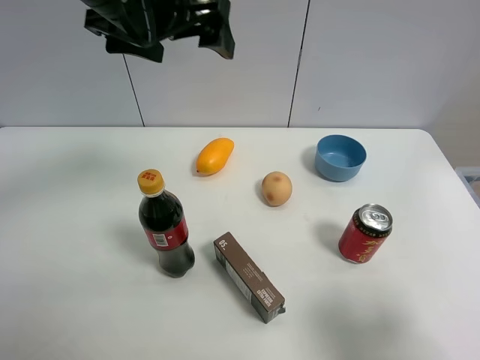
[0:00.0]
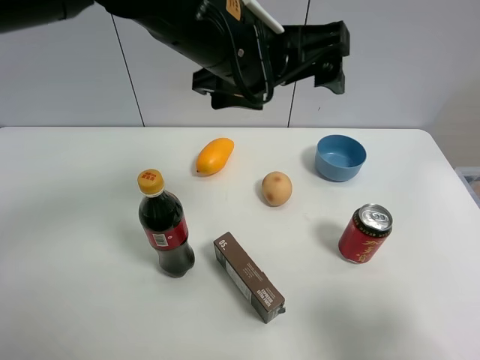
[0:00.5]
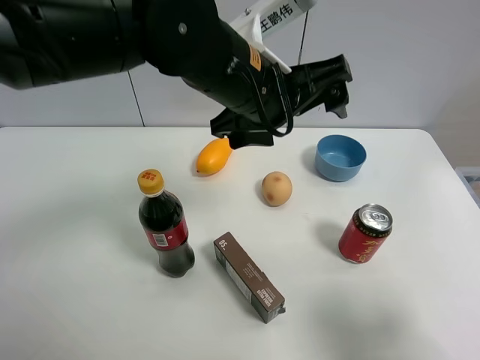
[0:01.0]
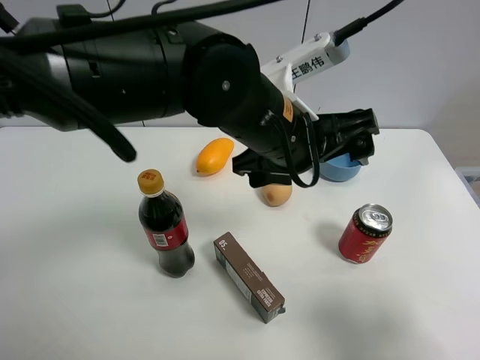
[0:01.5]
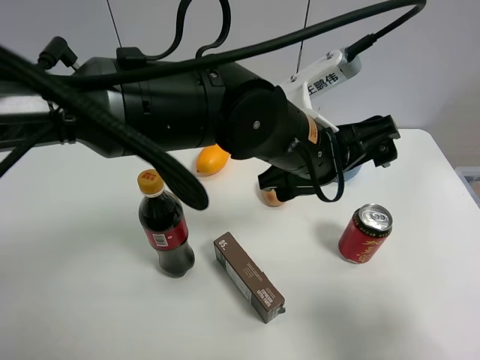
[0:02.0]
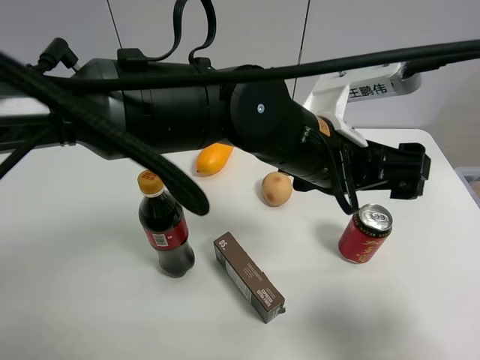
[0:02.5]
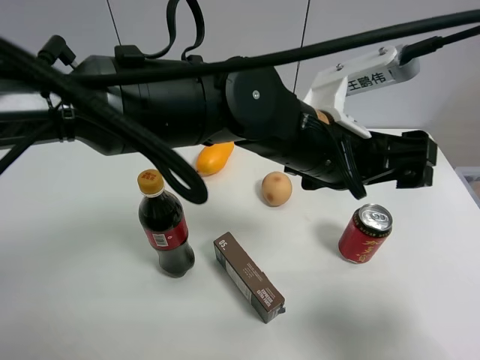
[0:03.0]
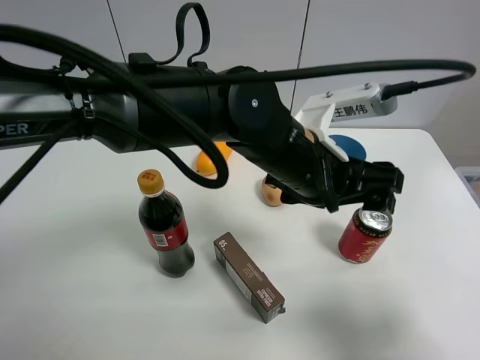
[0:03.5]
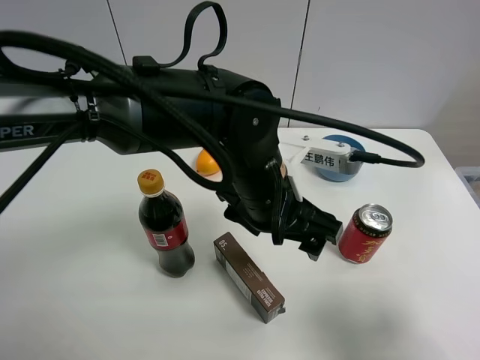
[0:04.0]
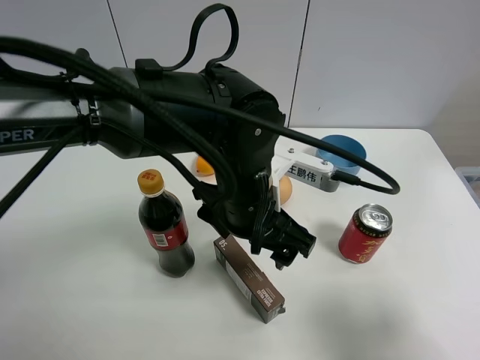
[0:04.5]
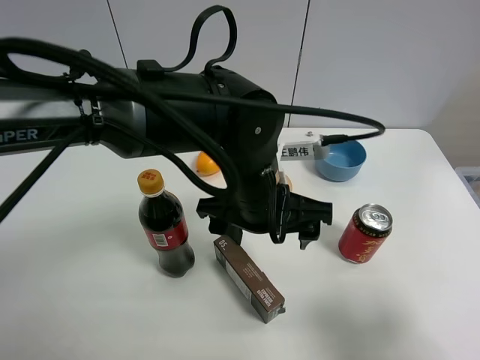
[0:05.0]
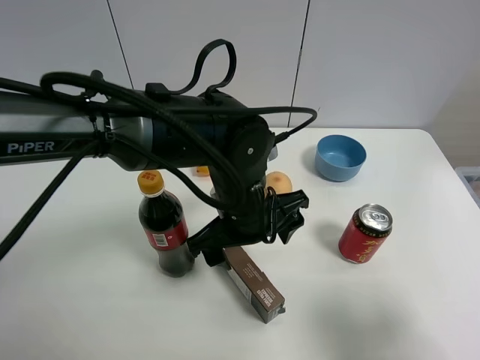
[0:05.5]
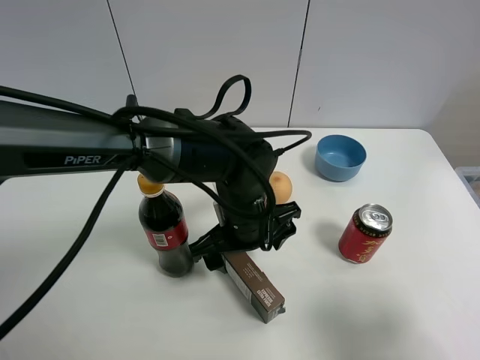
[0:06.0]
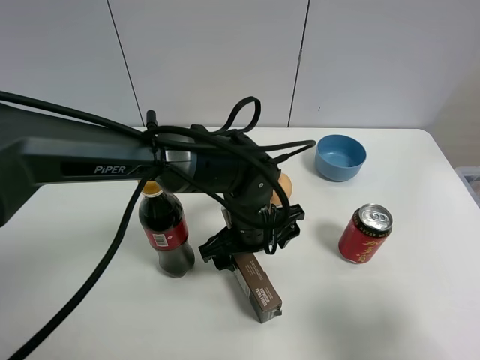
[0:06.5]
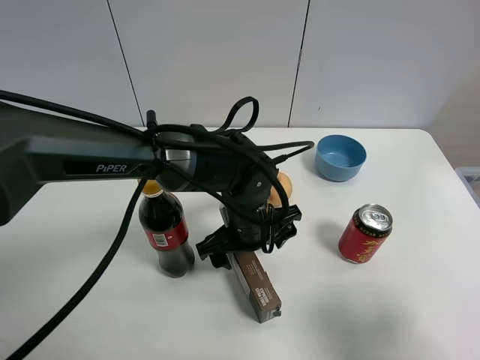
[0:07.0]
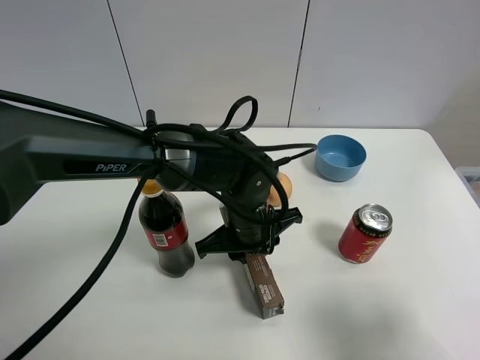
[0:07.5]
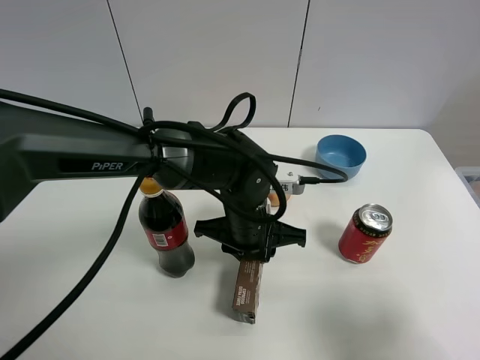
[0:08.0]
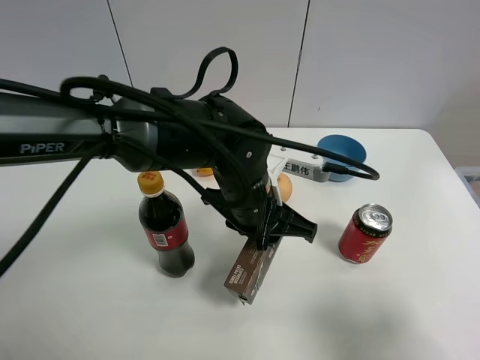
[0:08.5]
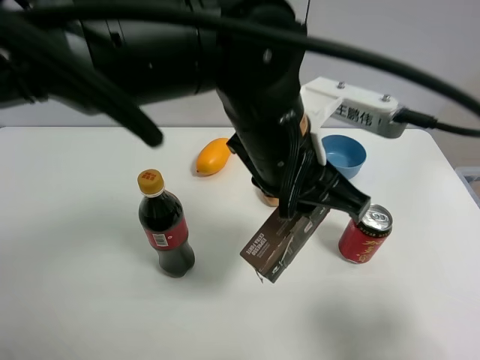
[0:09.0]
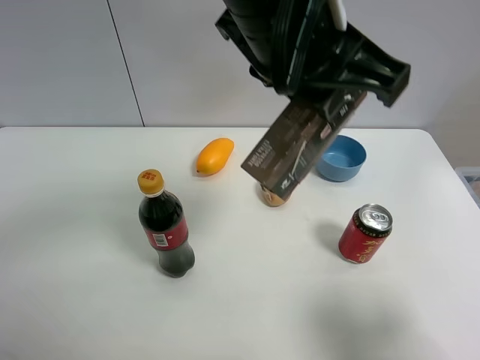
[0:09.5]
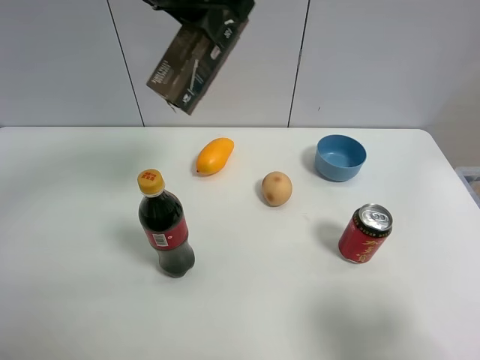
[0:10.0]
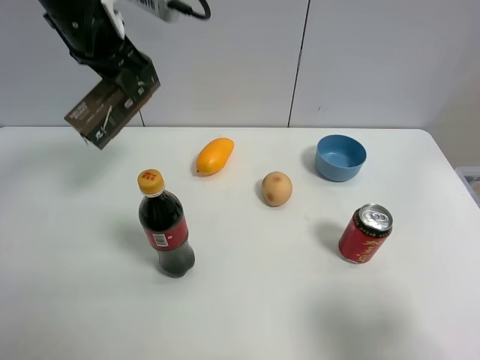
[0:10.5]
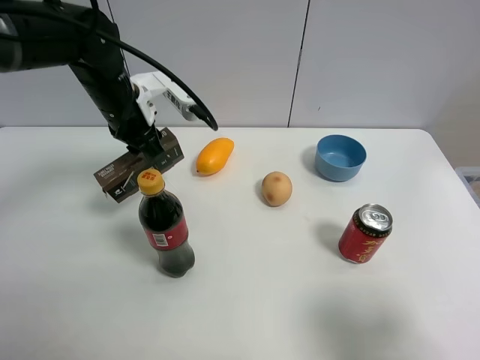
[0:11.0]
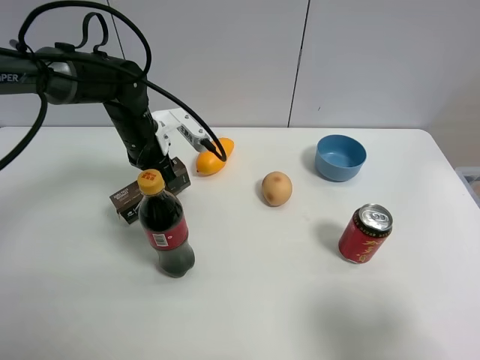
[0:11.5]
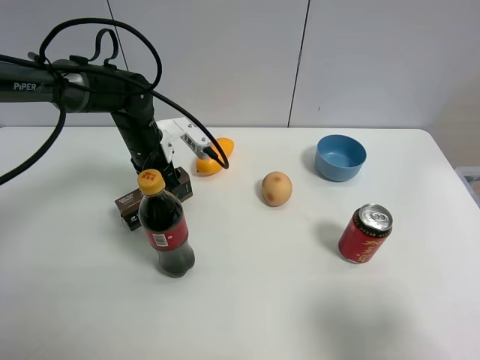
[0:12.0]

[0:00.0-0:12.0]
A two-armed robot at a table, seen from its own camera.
Task of the whole recording: the gripper move the object.
Step, 0:00.0 to 0:07.0: Grasp the Luckin Coffee box with the left gripper.
0:00.0 to 0:02.0: The left gripper moves to the right, downward and backward, approximately 20 cm.
0:02.0 to 0:04.0: The left gripper ends up some 5 cm from where it was.
0:04.0 to 0:06.0: The left gripper moves downward, some 5 cm.
0:06.0 to 0:08.0: The left gripper closes its fingers.
0:08.0 to 0:10.0: The left gripper goes approximately 30 cm upward.
0:10.0 to 0:12.0: The left gripper heads downward, covering about 30 cm, and opens.

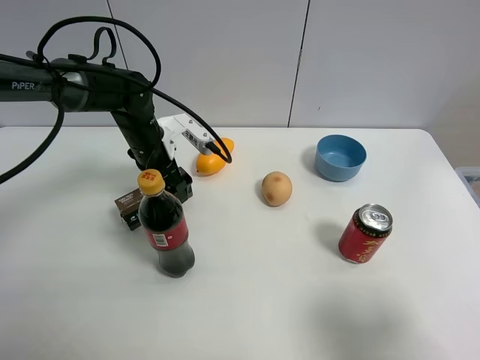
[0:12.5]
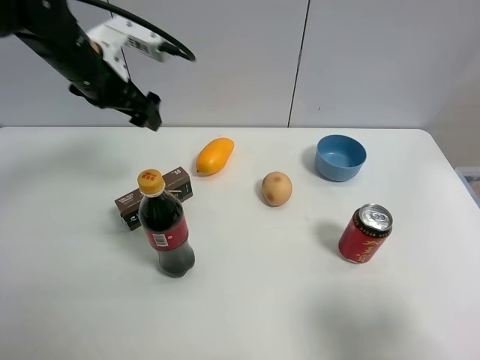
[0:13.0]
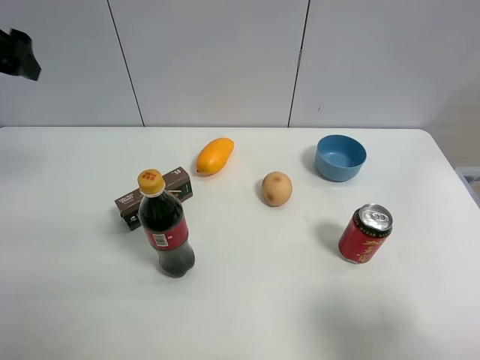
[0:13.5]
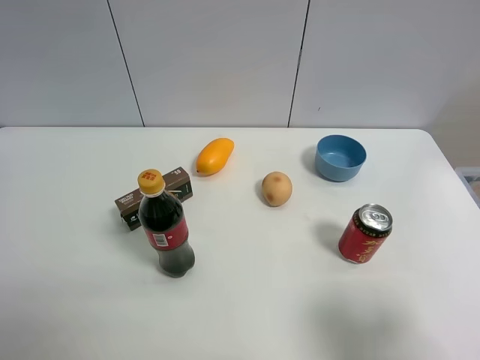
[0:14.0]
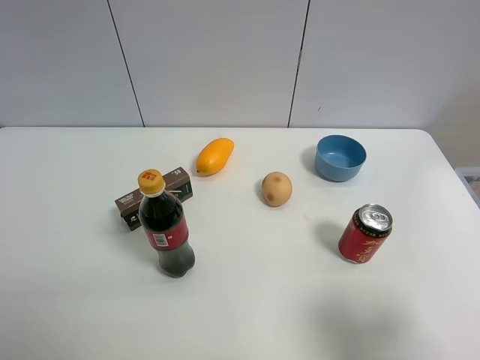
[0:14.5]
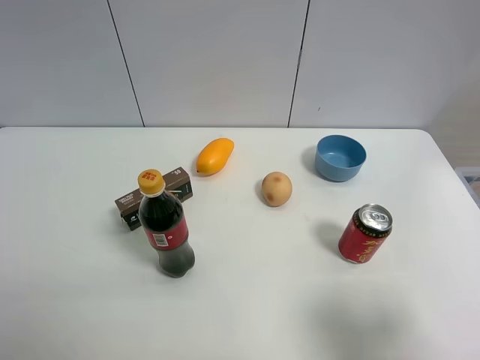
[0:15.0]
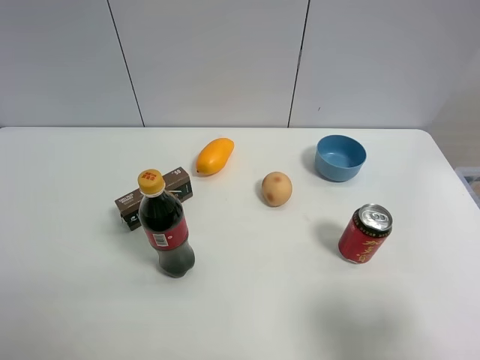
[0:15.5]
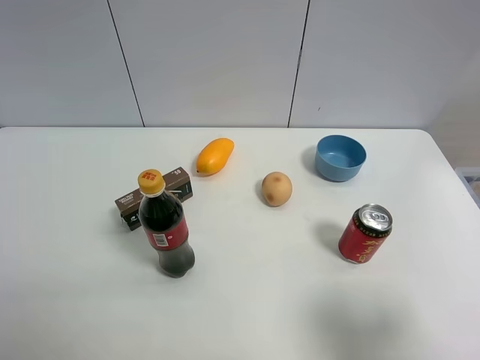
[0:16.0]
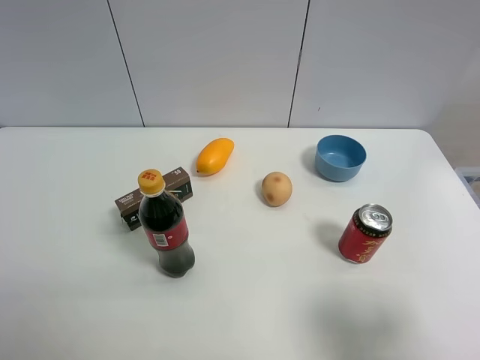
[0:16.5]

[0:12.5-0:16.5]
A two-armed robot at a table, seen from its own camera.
Task of the whole recording: the gripper move the object.
0:12.5 to 0:14.5: The left gripper heads backward, upward and to the left, covering approximately 50 cm.

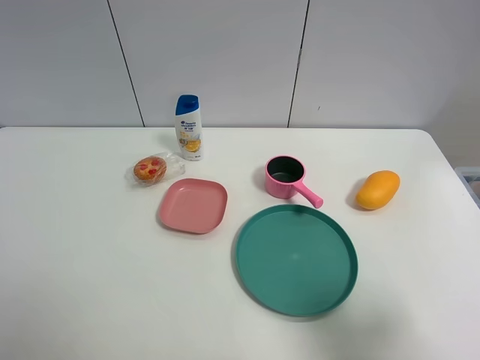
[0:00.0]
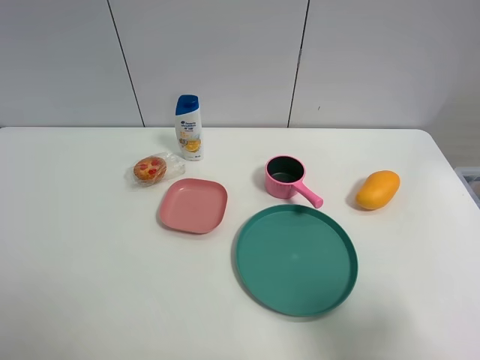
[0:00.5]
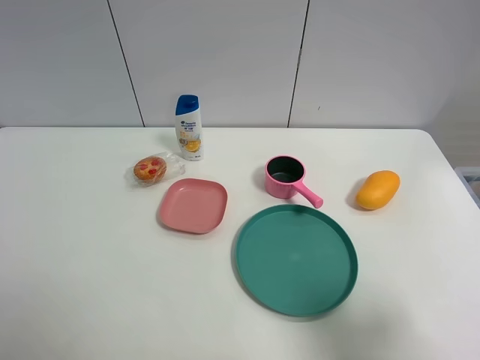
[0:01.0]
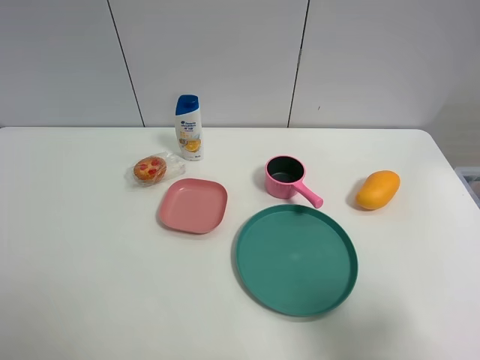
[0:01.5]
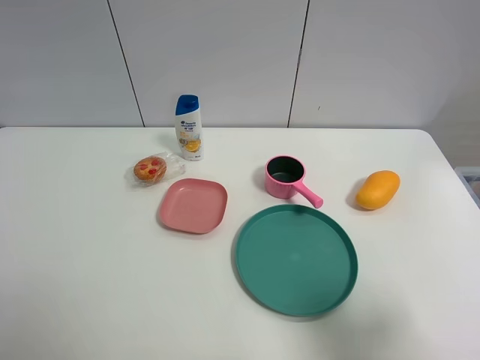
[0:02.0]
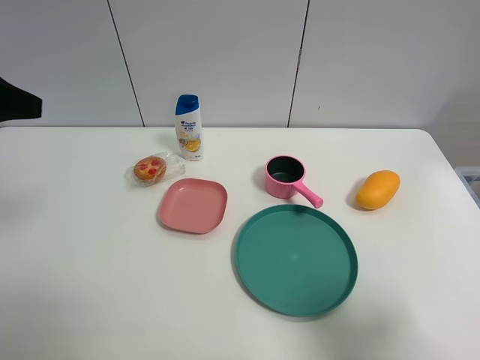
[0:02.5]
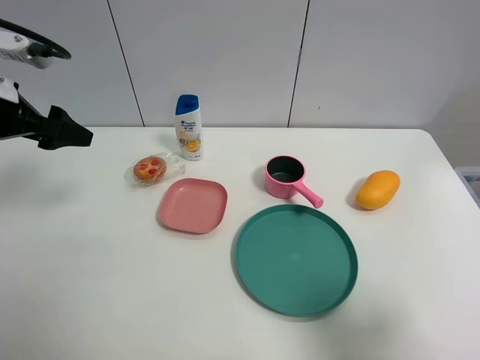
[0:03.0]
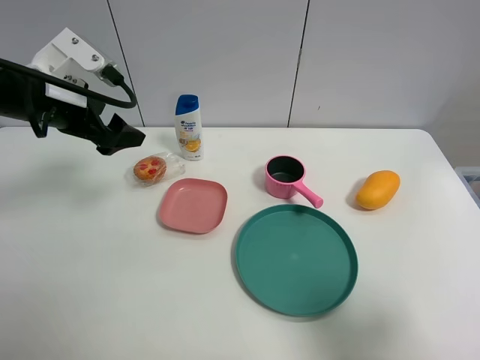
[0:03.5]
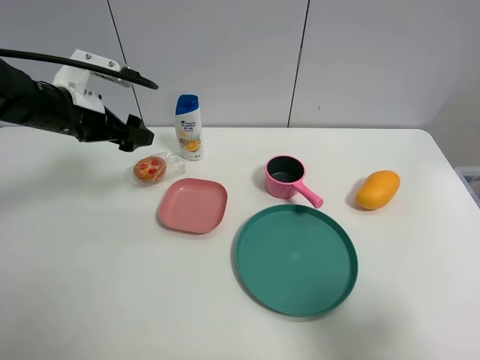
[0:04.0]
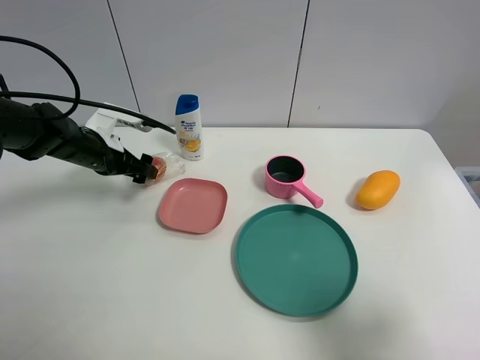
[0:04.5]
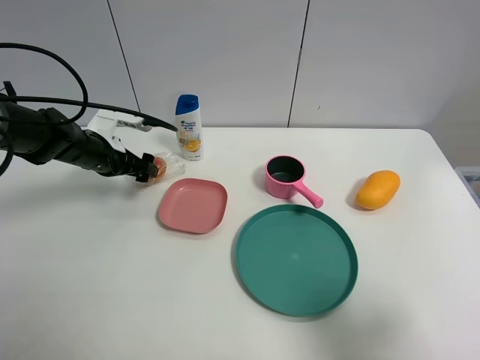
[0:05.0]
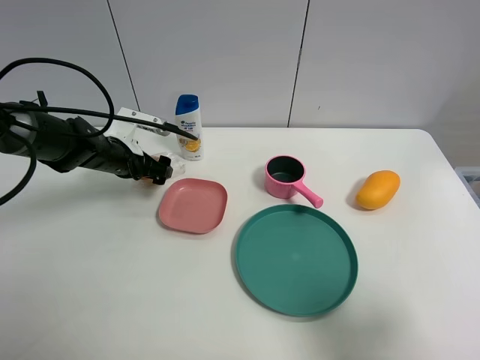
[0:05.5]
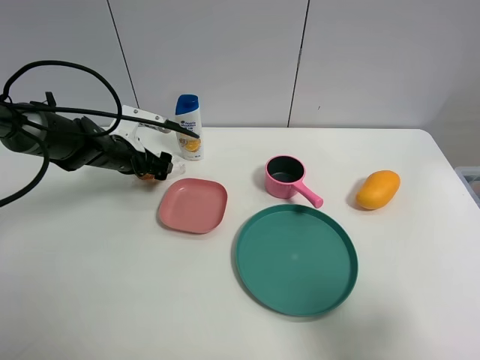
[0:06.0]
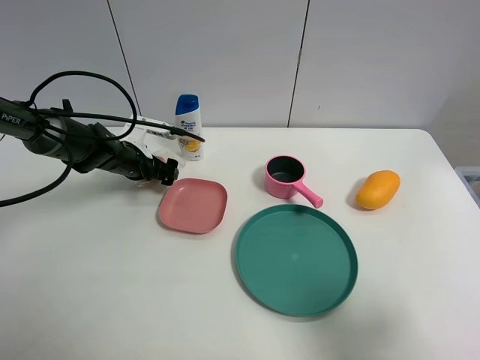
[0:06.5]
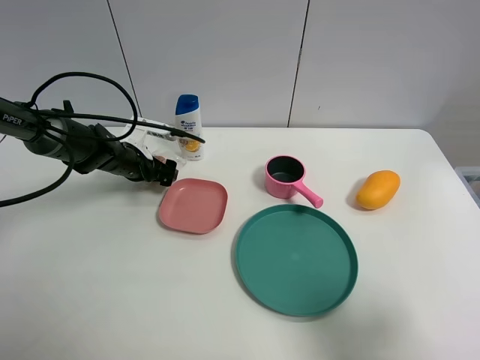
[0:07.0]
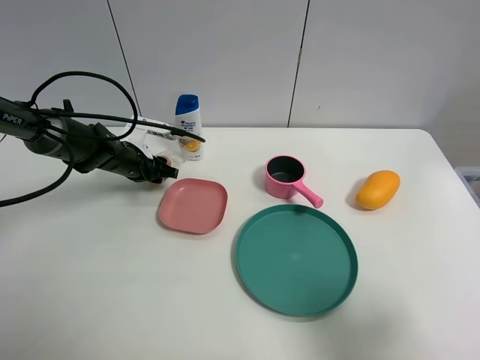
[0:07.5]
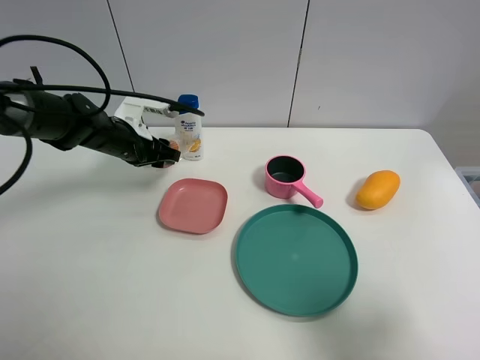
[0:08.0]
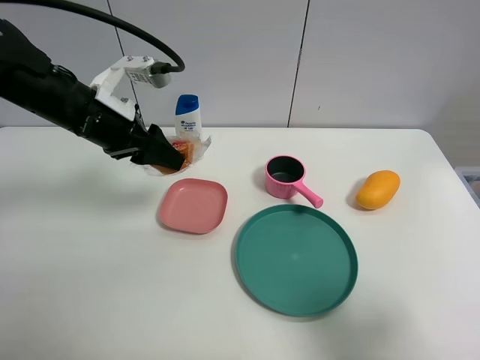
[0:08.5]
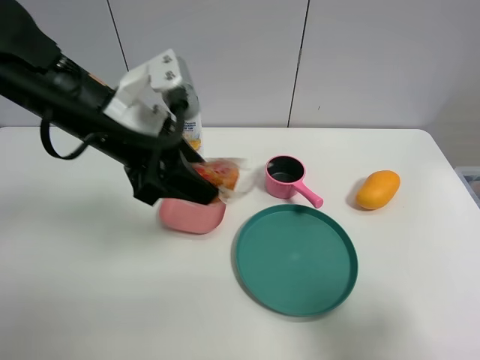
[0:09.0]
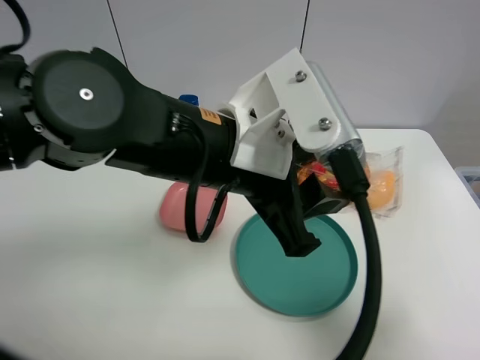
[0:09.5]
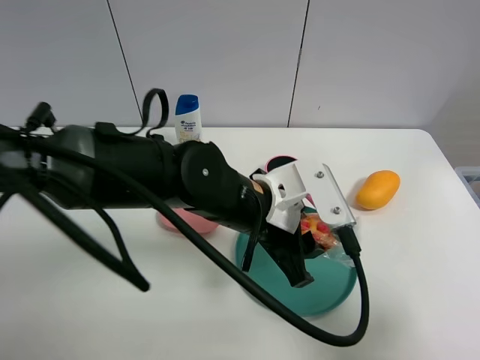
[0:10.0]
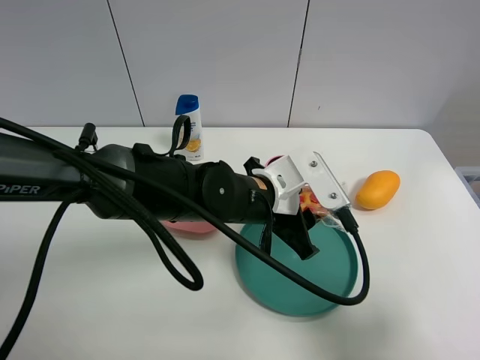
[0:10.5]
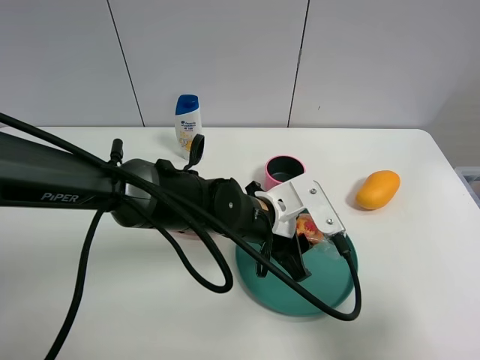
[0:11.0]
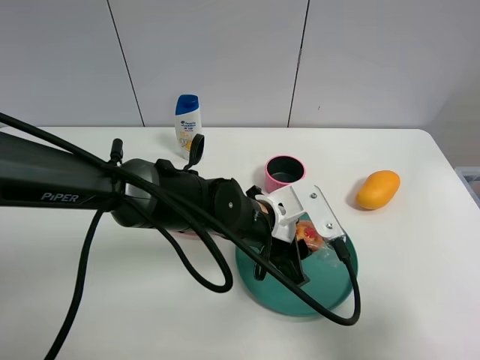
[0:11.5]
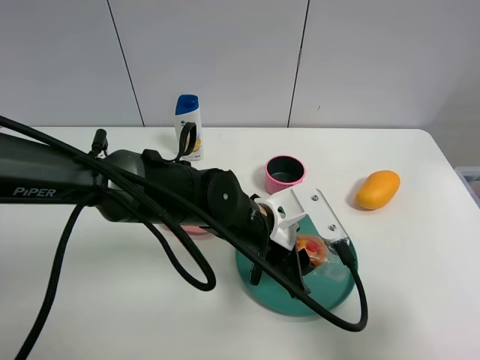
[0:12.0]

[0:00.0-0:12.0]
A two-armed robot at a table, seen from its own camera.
Task of the whole recording: the gripper move the object.
Step, 0:00.0 to 0:07.0: Grasp the egg tart with the left gripper.
0:02.0 to 0:04.0: The left gripper shifts approximately 35 cm forward and downward.
0:04.0 to 0:06.0: The left gripper heads downward, covering some 10 cm.
0:06.0 to 0:08.0: The left gripper closes its fingers.
0:08.0 to 0:10.0: The left gripper travels to the right and backward by some 30 cm.
0:10.0 to 0:12.0: The grippers move only a little.
